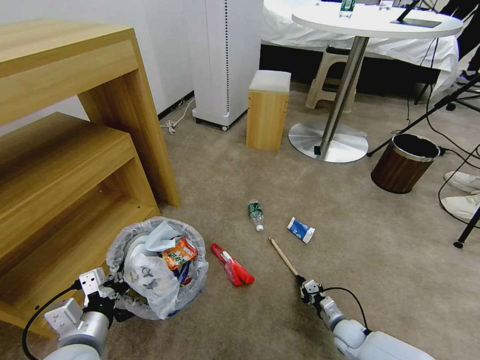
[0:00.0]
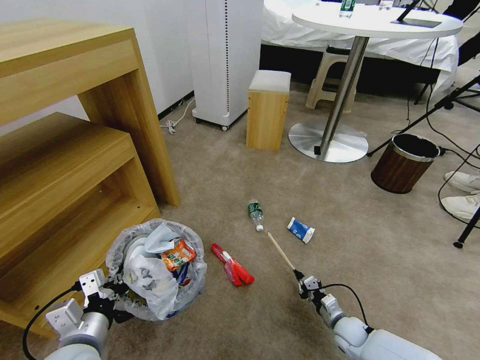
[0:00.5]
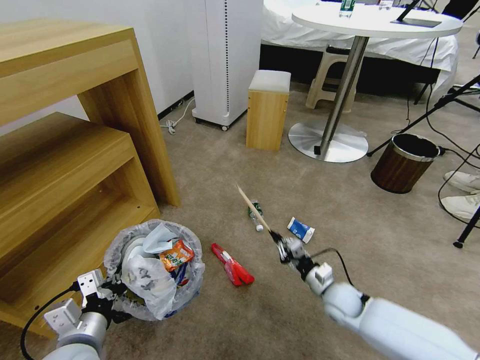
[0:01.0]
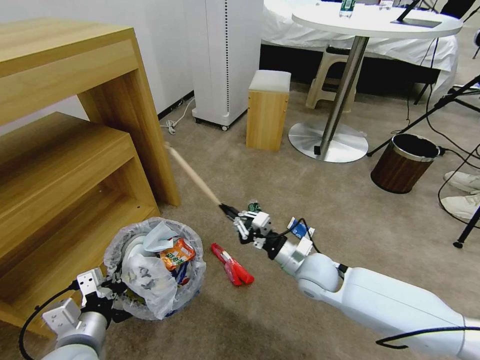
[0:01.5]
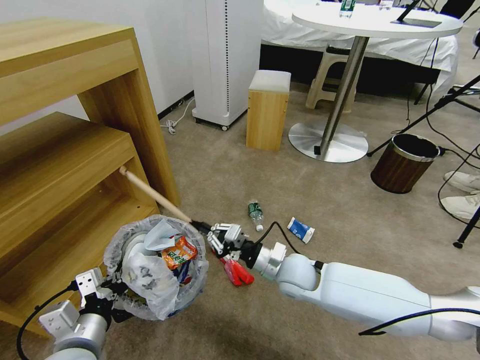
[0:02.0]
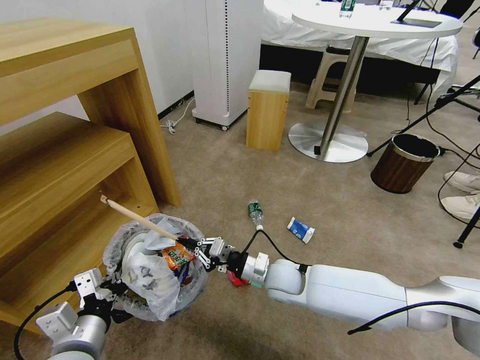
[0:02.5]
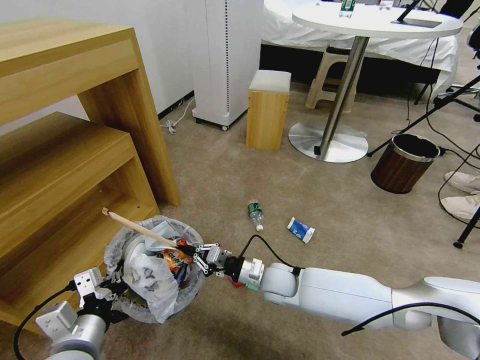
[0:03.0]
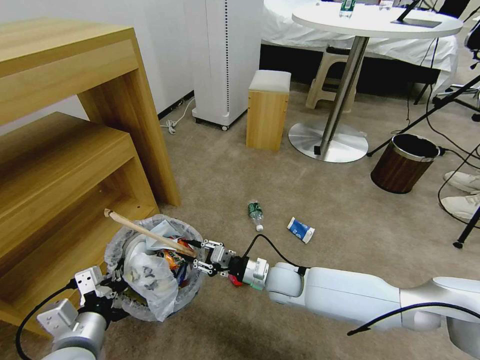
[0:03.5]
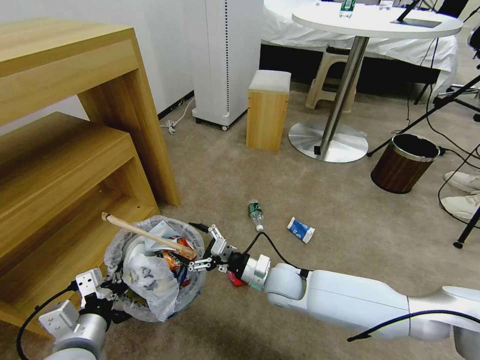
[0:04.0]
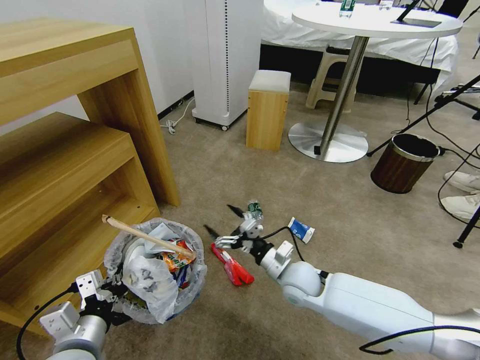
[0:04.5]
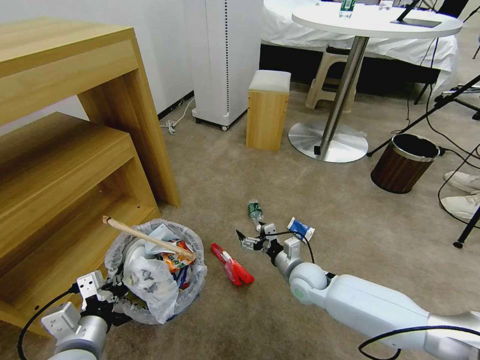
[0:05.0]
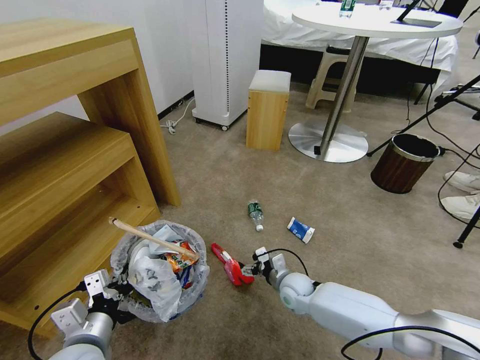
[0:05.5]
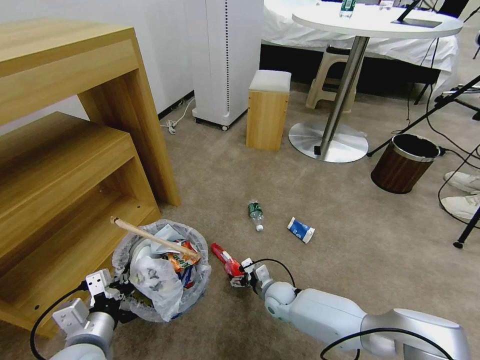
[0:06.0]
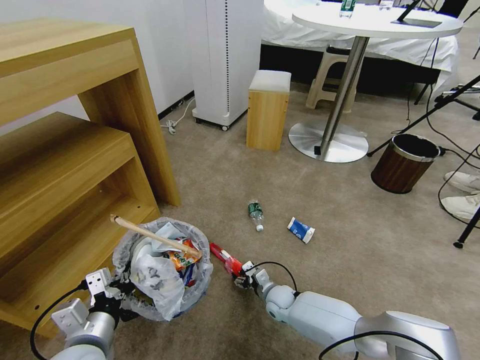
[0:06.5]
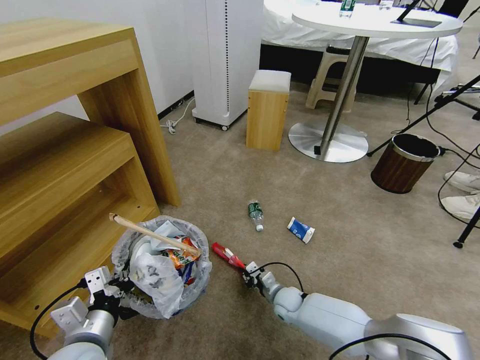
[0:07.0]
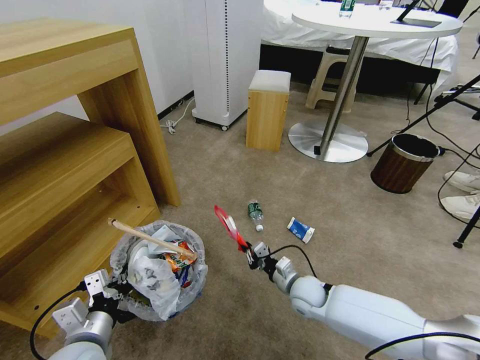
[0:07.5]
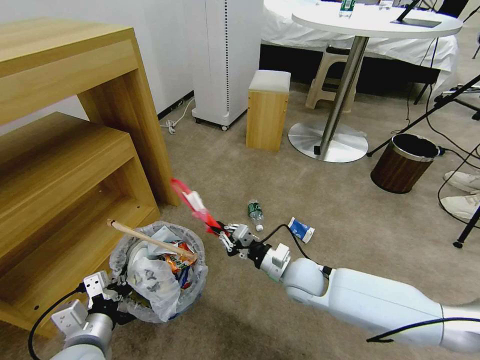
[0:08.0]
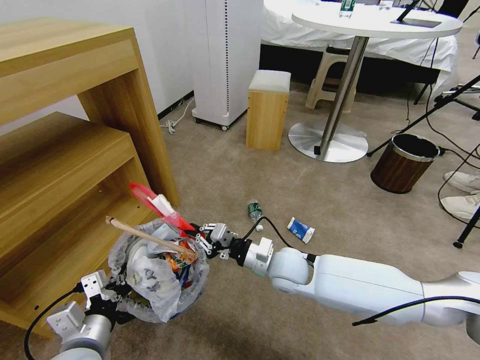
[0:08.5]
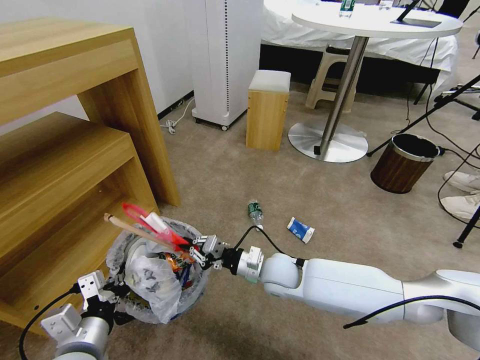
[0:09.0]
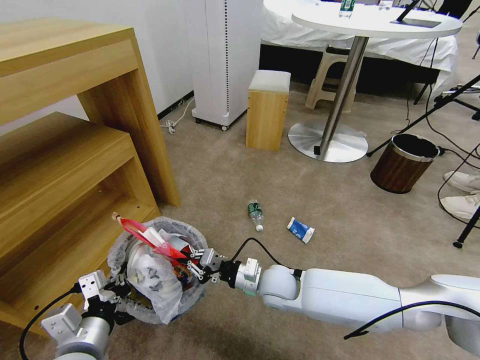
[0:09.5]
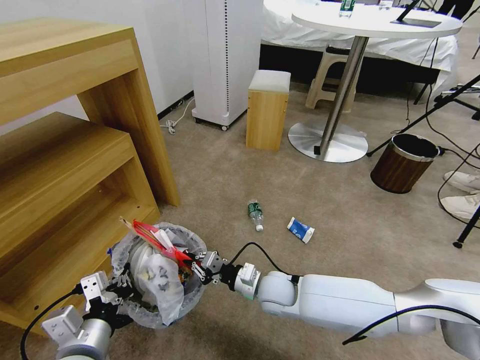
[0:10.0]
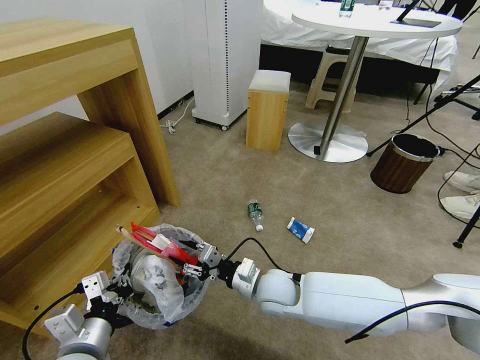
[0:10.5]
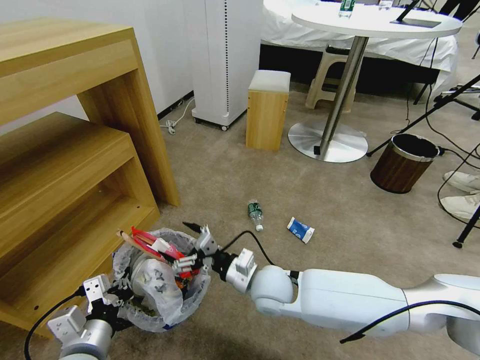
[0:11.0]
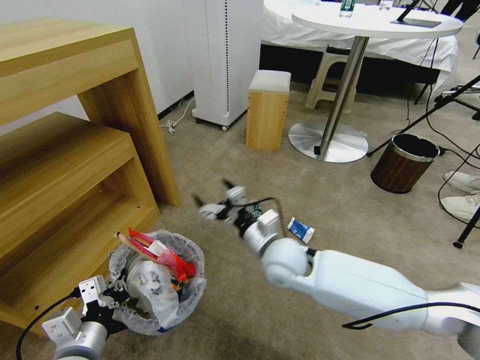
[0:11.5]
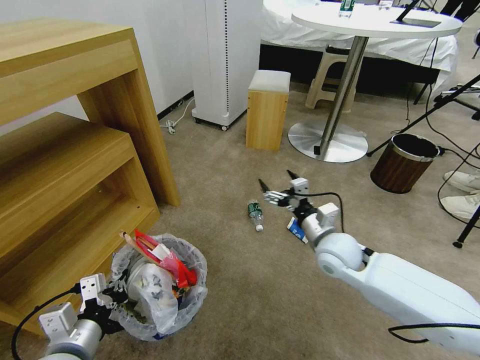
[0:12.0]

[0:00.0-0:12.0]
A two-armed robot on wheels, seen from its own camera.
Task of the whole recording: Pick up the trash bin and place the garbage on the floor into it.
0:00.0 to 0:02.0: The right gripper moves upward and to the left, roughly 30 cm.
0:02.0 to 0:04.0: The right gripper opens up.
0:04.0 to 0:06.0: The right gripper is displaced downward by approximately 15 cm.
0:06.0 to 0:08.0: The right gripper heads upward, covering approximately 20 cm, and closes up.
0:08.0 to 0:10.0: The right gripper is displaced to the left by about 5 cm.
0:10.0 to 0:12.0: The right gripper moves to the right and upward, approximately 20 cm, and opens its fingers.

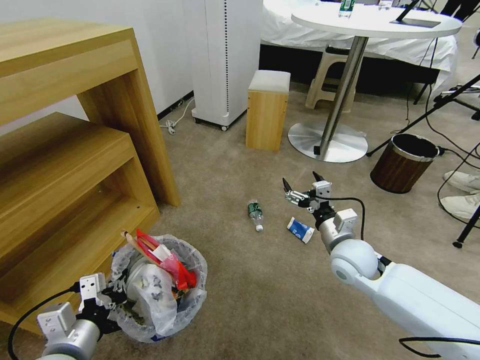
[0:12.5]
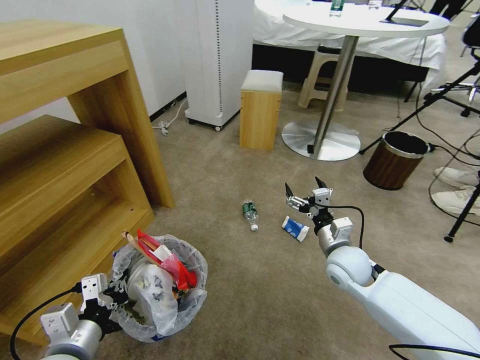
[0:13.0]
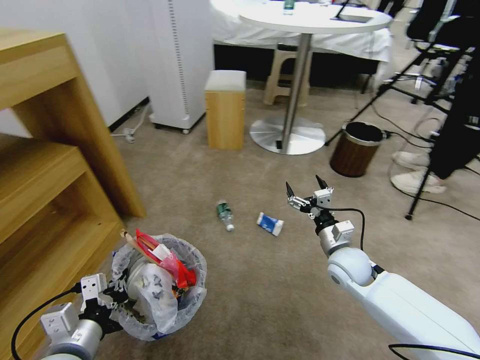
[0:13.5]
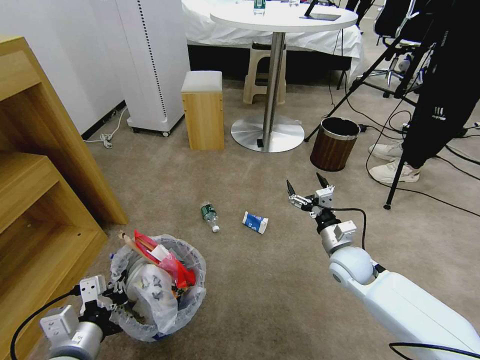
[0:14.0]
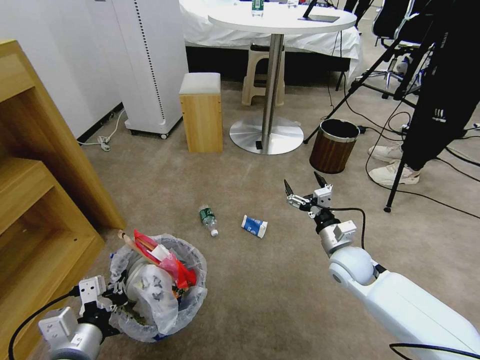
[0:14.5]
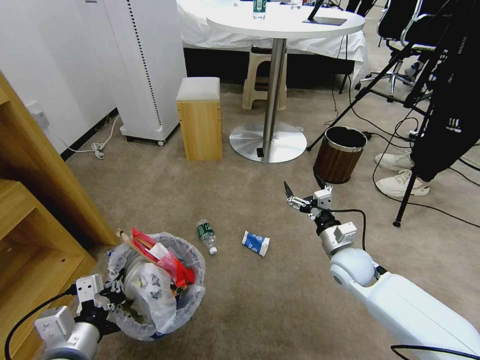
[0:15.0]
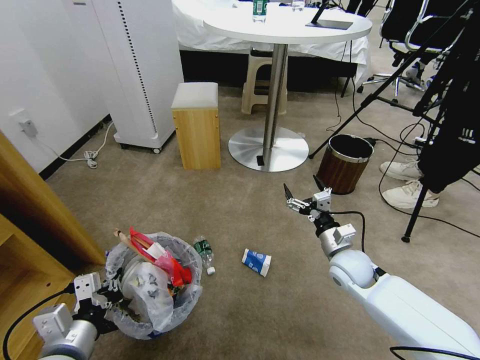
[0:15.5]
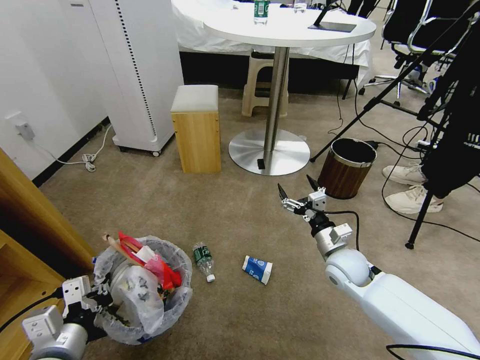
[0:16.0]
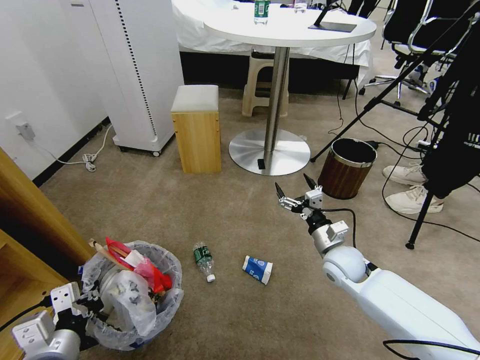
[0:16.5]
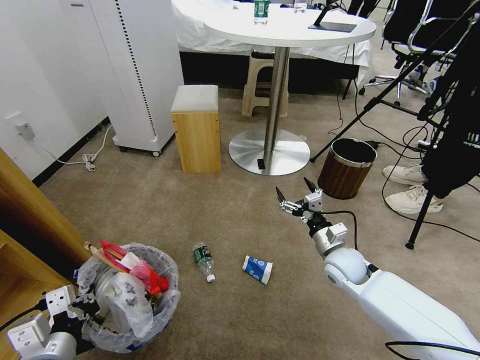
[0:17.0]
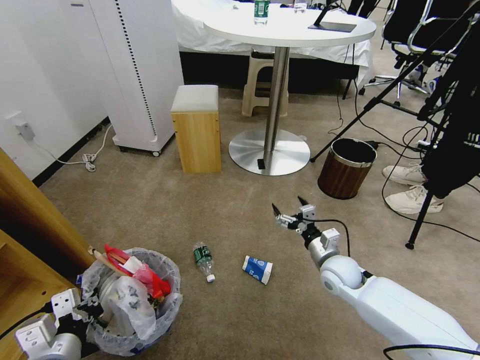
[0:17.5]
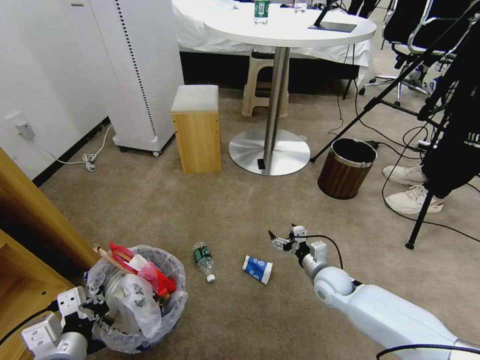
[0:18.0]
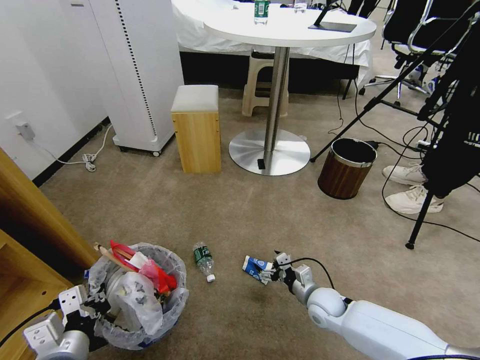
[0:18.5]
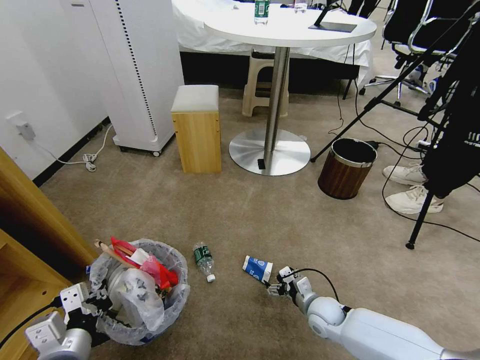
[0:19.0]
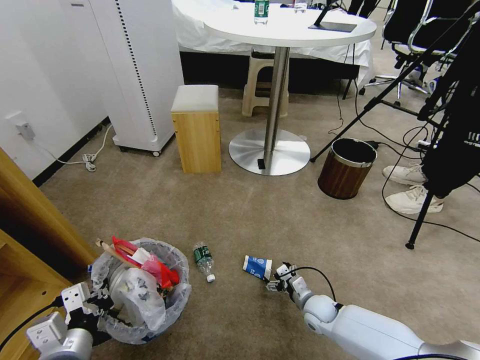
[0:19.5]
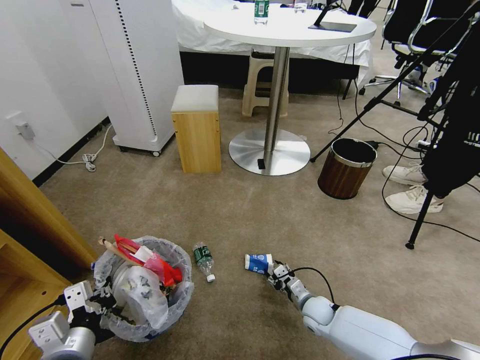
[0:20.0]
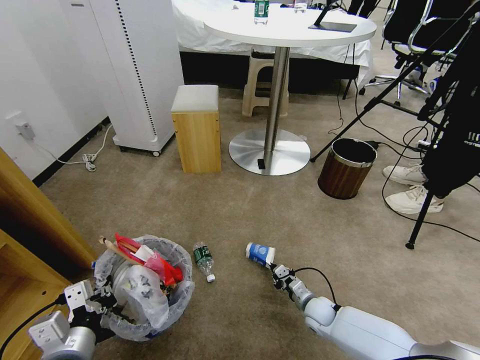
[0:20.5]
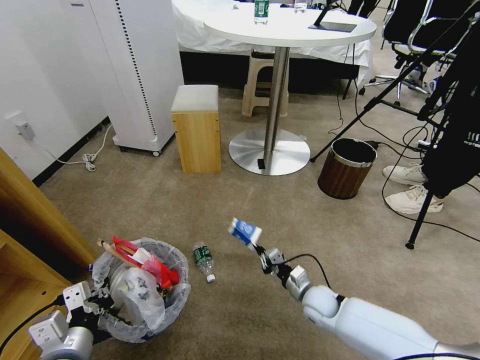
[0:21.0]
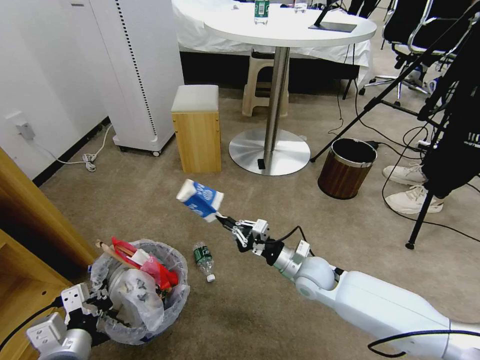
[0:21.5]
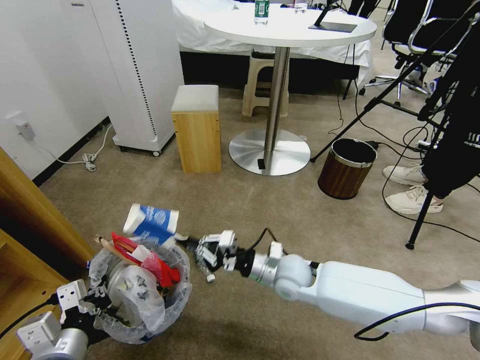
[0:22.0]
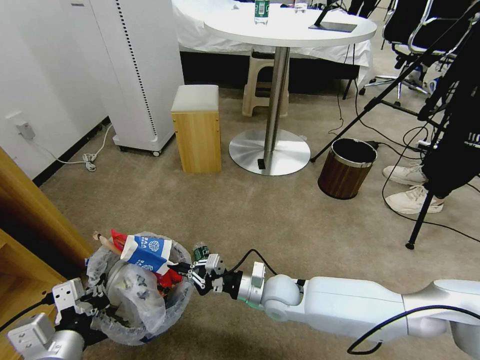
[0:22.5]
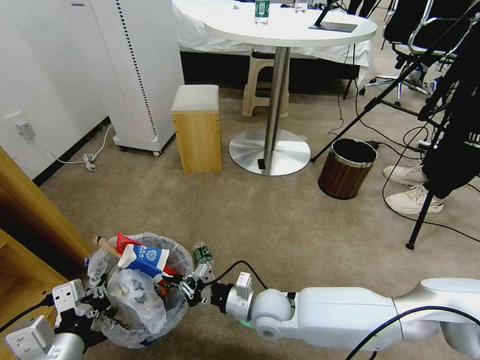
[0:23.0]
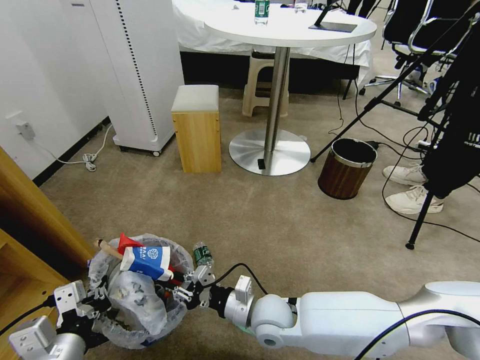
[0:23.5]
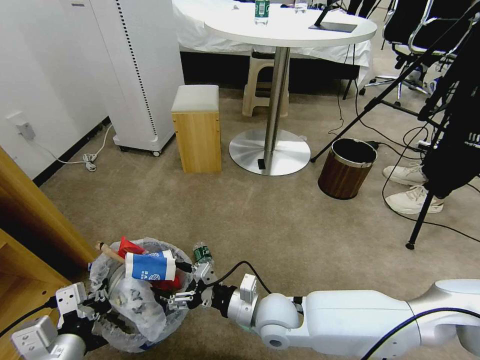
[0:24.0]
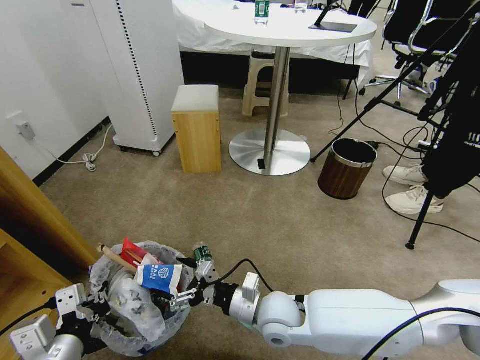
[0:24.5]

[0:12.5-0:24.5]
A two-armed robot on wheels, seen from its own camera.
Task of the whole recording: Pick up the trash bin and place the garbage on the floor into it.
0:16.5 to 0:18.5: The right gripper shifts about 15 cm downward and backward.
0:18.5 to 0:20.5: The right gripper heads downward, covering roughly 10 cm, and closes its fingers.
0:20.5 to 0:22.5: The right gripper goes roughly 20 cm upward and to the left.
0:22.5 to 0:24.5: The right gripper travels backward by roughly 5 cm, and opens up.

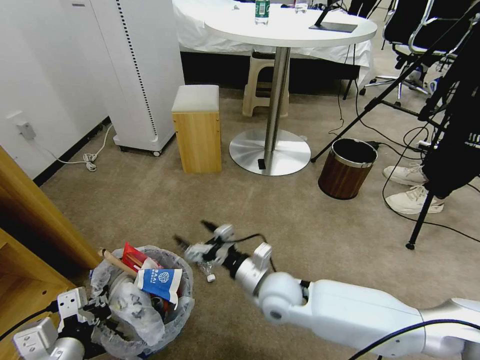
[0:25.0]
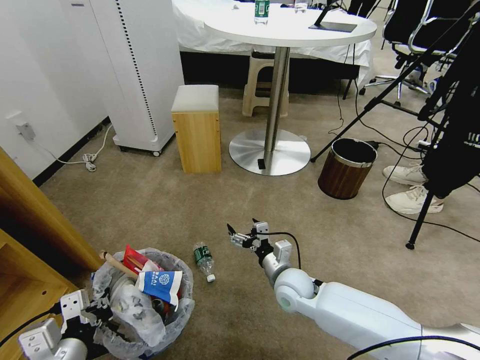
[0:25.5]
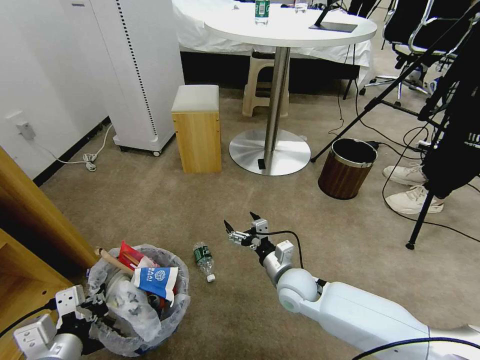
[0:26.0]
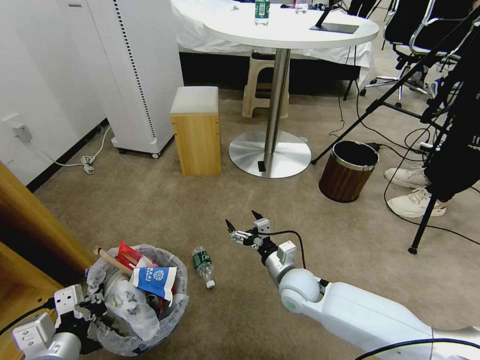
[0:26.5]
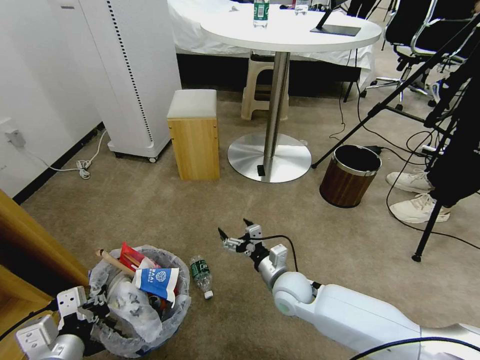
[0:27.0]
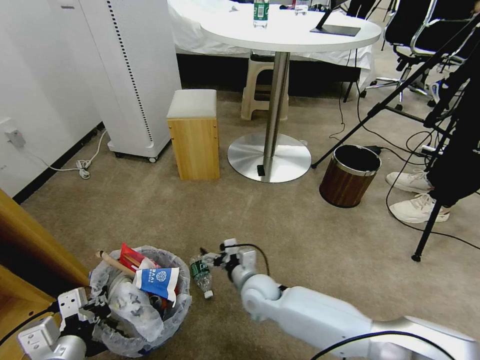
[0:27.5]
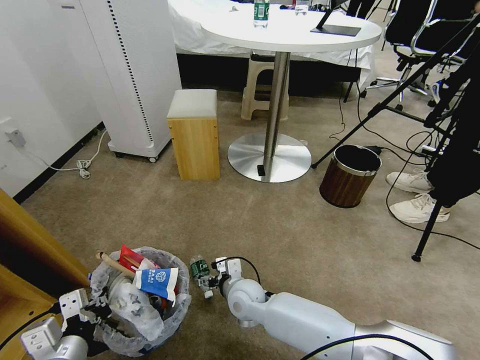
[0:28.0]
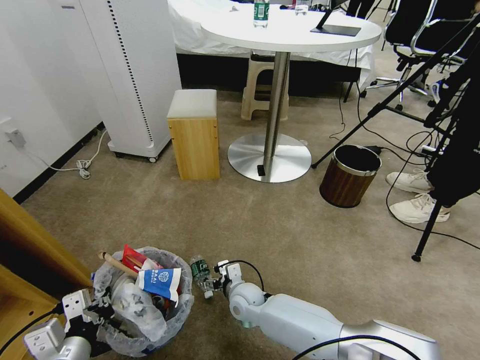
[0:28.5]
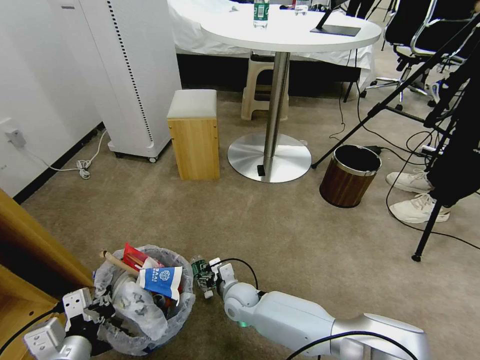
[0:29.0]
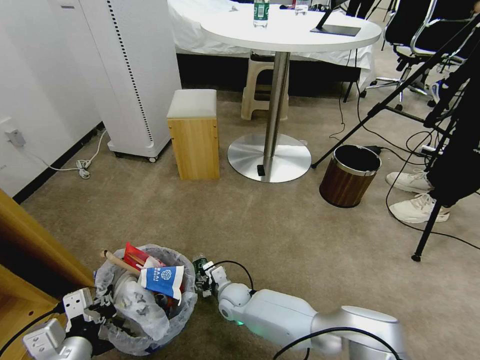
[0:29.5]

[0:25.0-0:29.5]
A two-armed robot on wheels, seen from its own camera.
Task of the whole recording: Pick up the trash bin and place the garbage on the floor into it.
0:25.0 to 0:27.0: The right gripper travels downward by roughly 5 cm.
0:27.0 to 0:29.5: The right gripper heads to the left and downward, covering approximately 20 cm.
